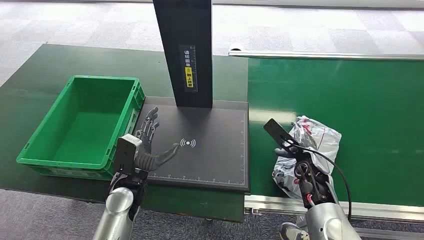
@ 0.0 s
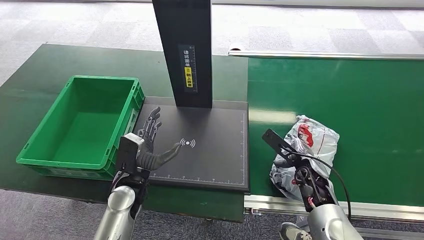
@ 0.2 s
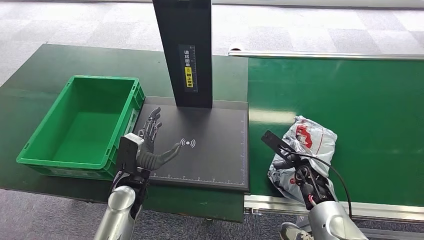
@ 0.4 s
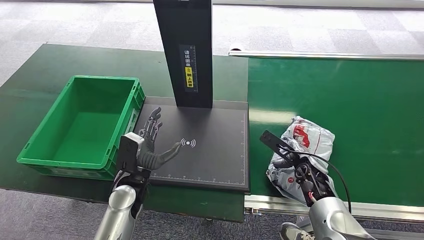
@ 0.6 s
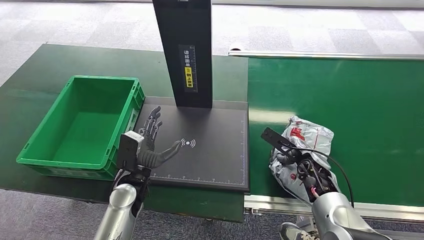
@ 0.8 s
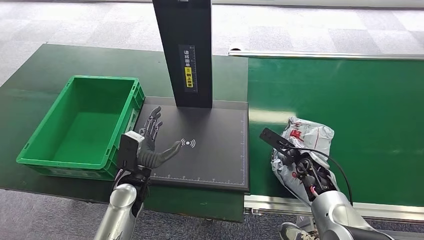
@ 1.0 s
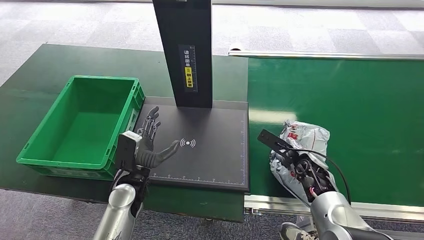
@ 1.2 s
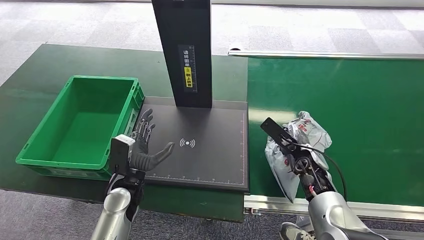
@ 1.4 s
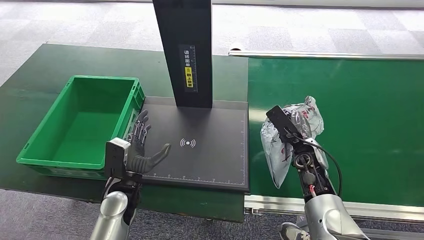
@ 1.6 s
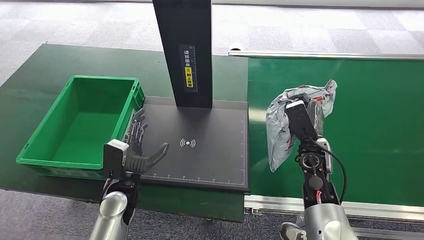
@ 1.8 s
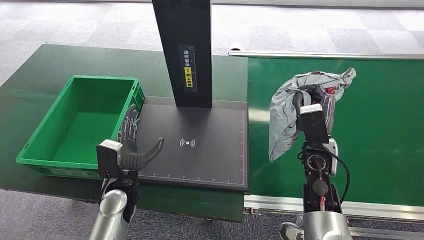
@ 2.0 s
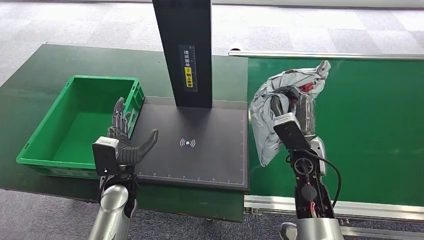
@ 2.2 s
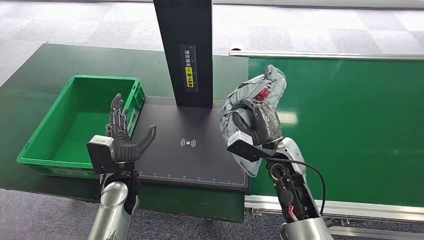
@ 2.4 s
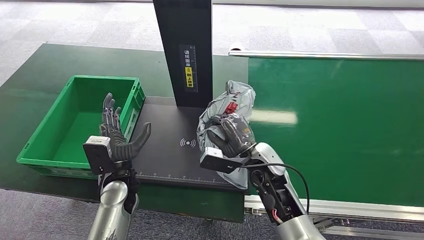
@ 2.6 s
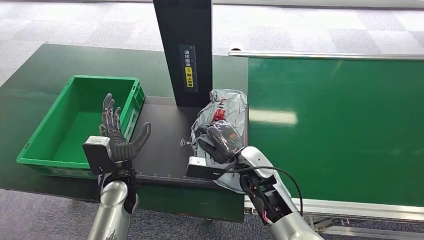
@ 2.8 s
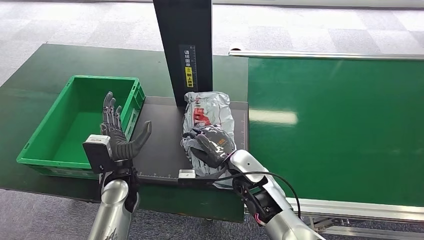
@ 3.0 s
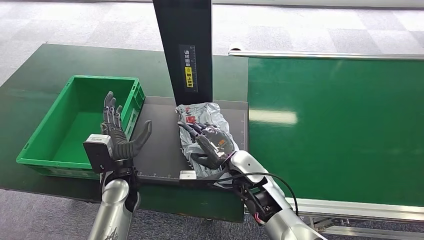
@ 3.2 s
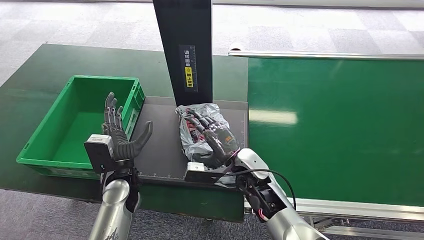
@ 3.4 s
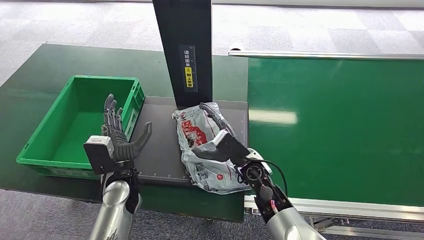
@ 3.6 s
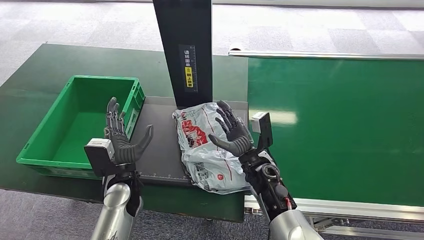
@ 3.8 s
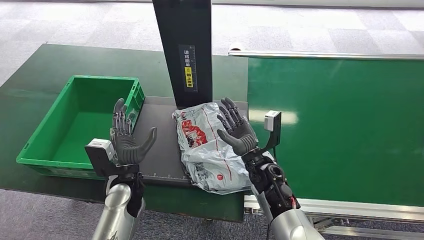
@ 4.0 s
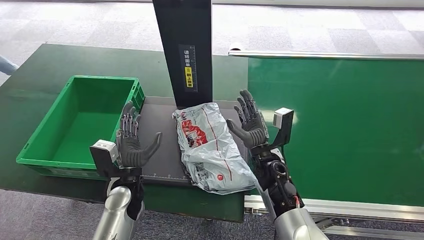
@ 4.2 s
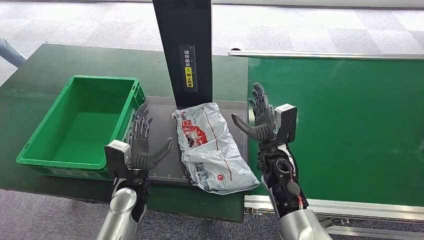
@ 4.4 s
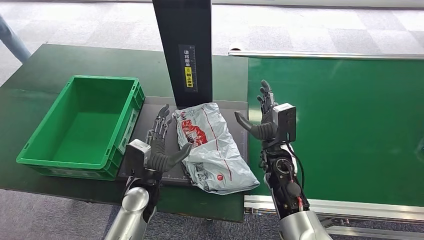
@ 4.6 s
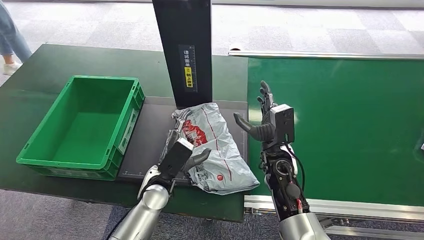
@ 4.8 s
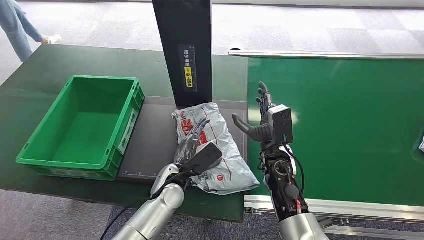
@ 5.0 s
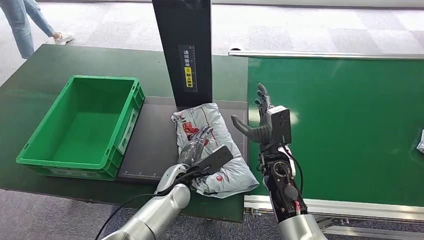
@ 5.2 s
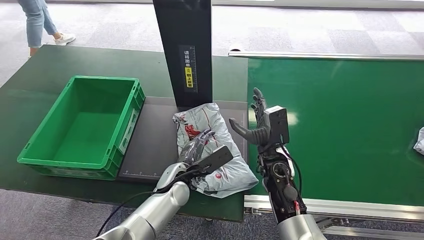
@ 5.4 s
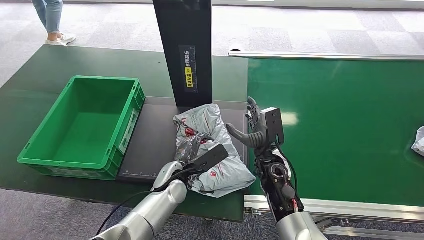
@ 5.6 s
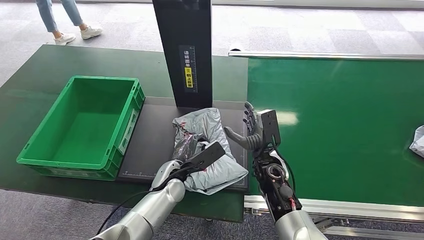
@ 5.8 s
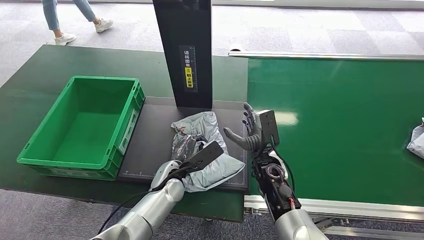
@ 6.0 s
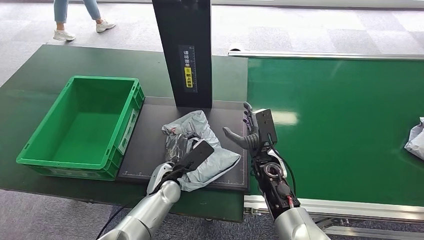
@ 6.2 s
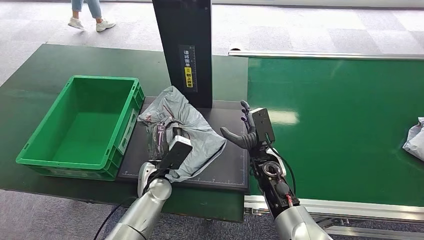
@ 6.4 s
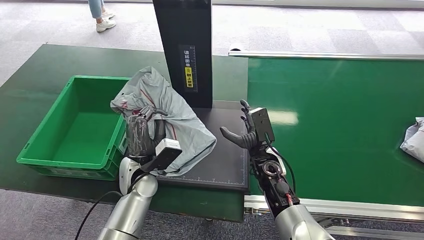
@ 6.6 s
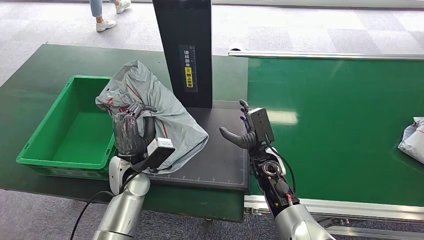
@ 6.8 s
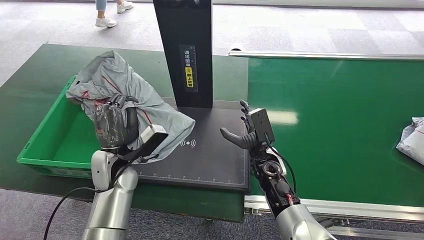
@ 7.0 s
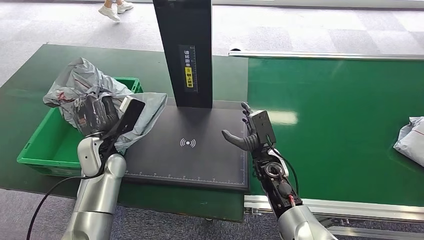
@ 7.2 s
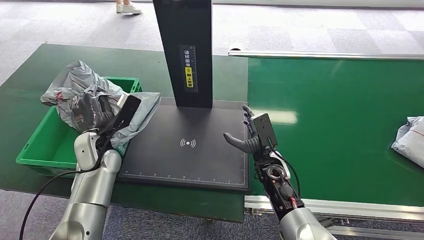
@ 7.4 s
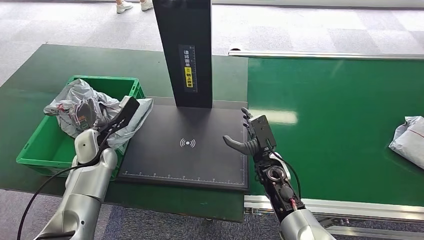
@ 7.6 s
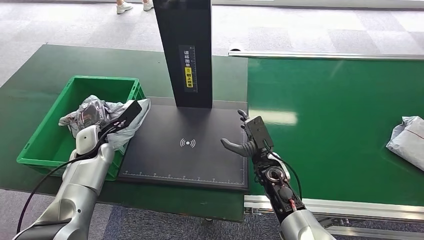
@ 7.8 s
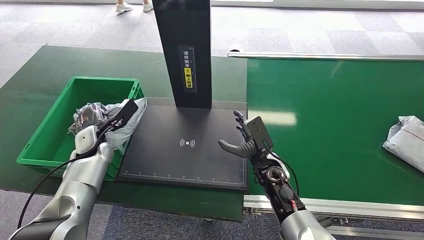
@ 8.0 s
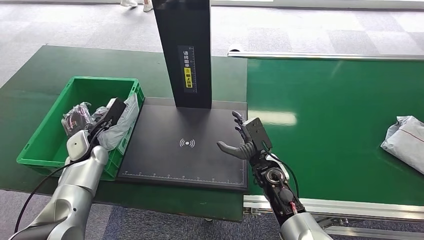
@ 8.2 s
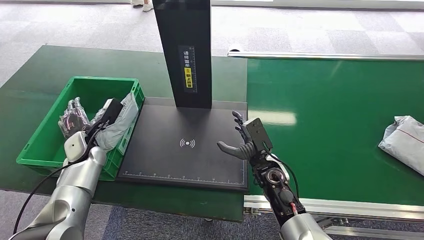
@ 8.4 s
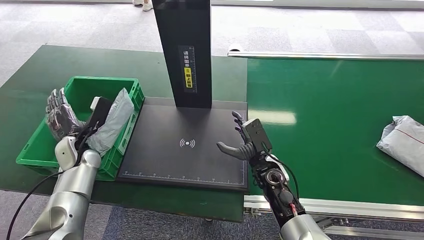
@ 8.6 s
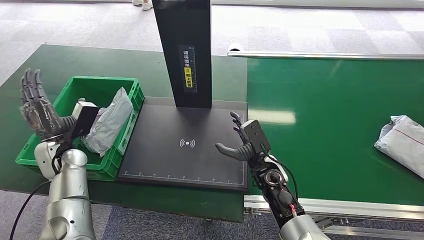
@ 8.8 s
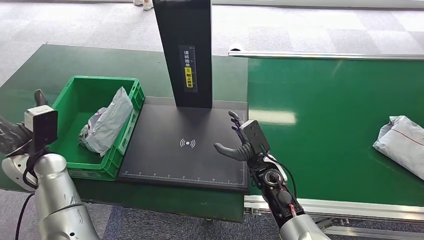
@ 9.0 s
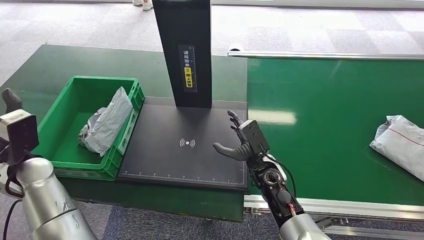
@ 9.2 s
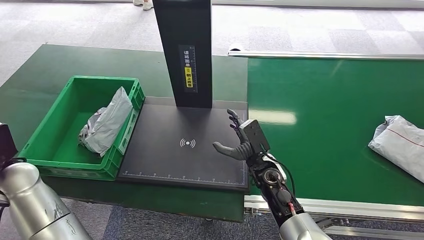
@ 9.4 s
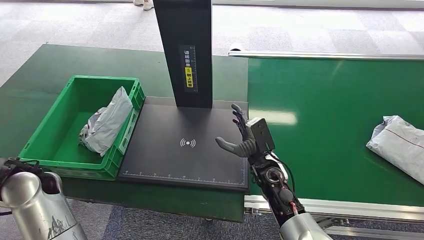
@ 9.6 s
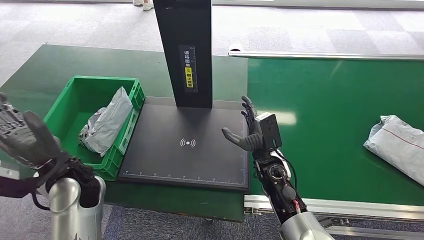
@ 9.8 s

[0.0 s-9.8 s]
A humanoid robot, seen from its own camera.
Step, 0.0 to 2.0 s: Pick up the package from the conveyor belt.
Step, 2.2 to 4.2 s: Place the package onto the inbound machine.
Step, 4.4 to 7.0 s: Pick up the package from the inbound machine.
Step, 7.2 to 9.8 s: Place the package into the parcel locker.
1.4 to 2.8 s: The right hand is displaced to the left by some 20 cm.
4.2 to 5.6 s: The left hand travels to the right by some 10 cm.
8.4 to 9.8 s: The left hand goes approximately 15 cm backward, upward and to the right.
